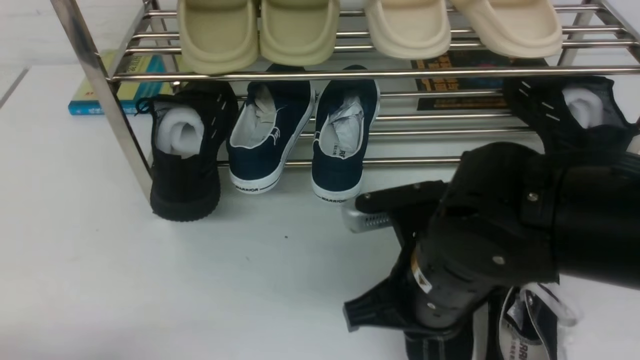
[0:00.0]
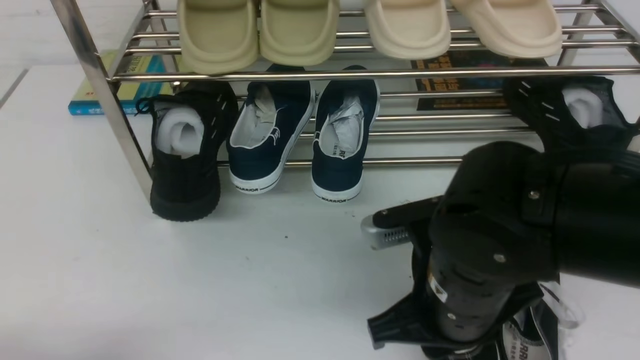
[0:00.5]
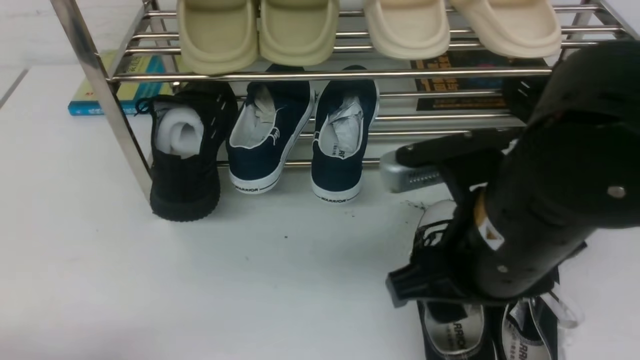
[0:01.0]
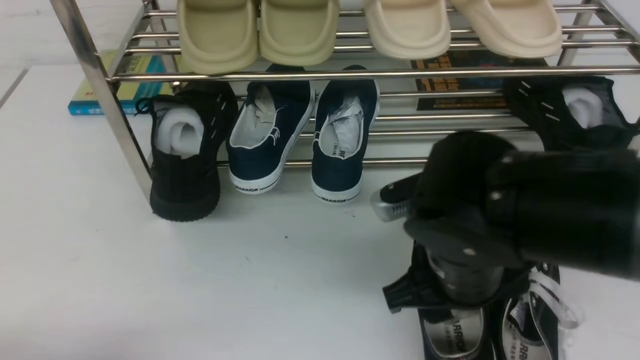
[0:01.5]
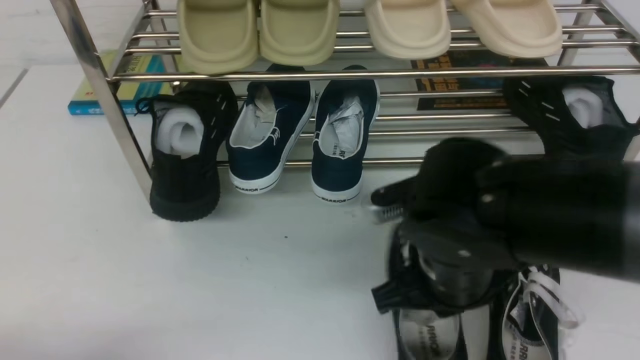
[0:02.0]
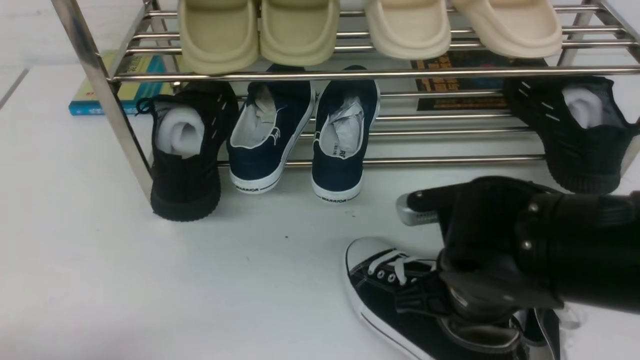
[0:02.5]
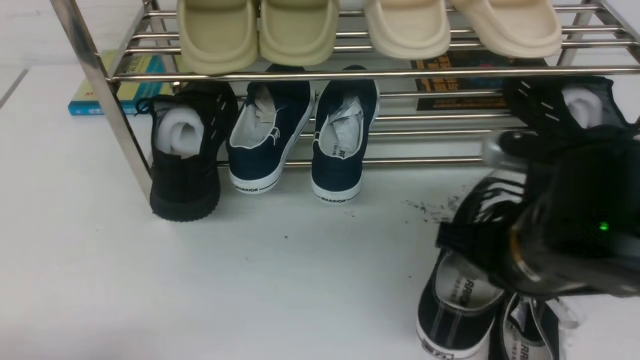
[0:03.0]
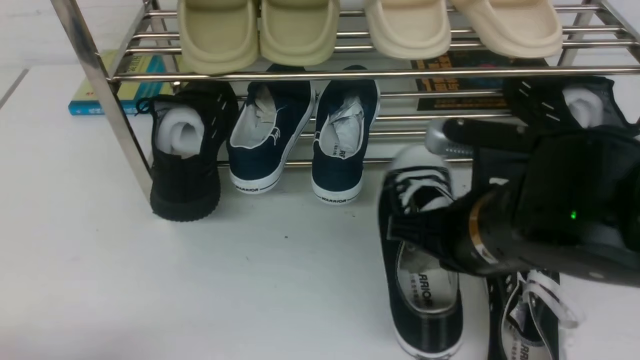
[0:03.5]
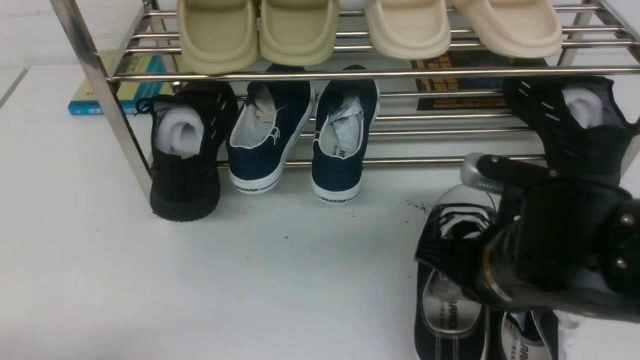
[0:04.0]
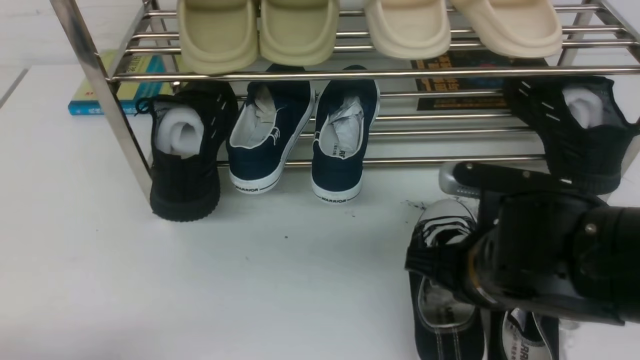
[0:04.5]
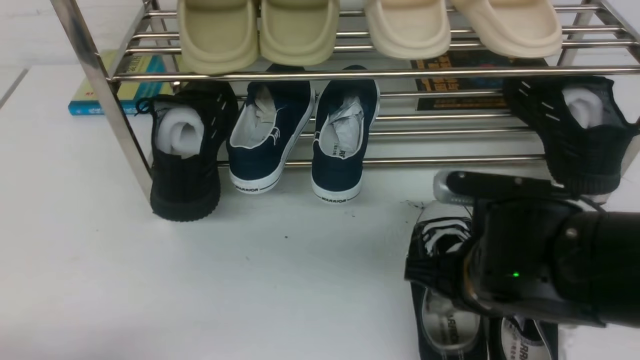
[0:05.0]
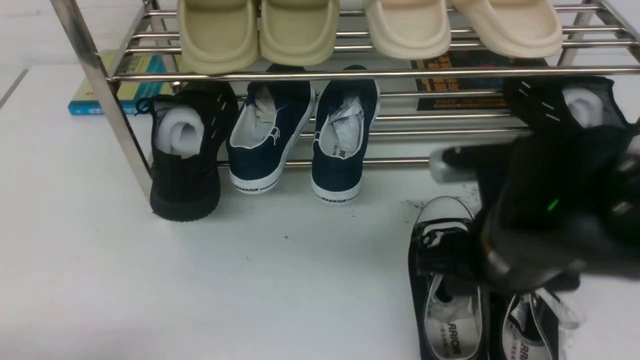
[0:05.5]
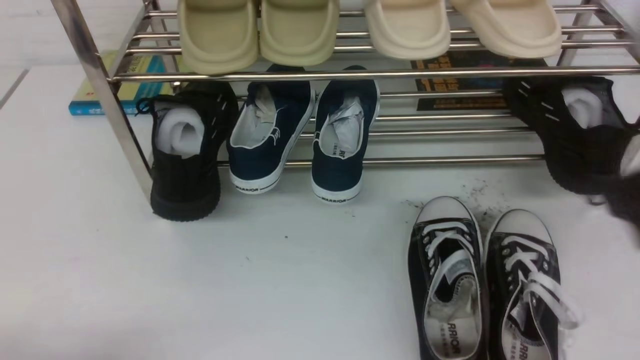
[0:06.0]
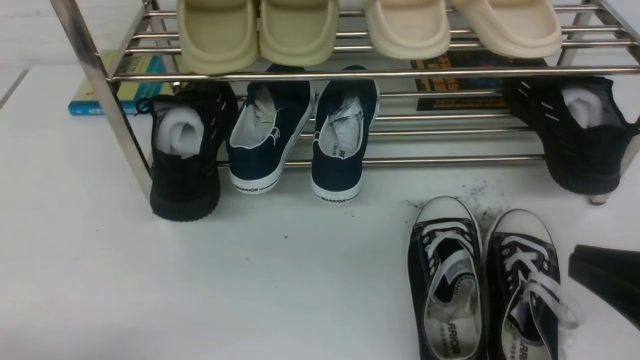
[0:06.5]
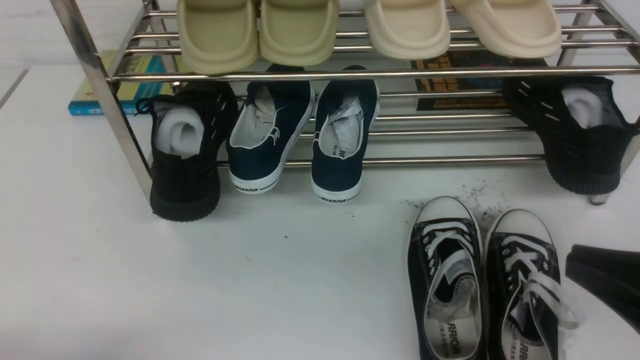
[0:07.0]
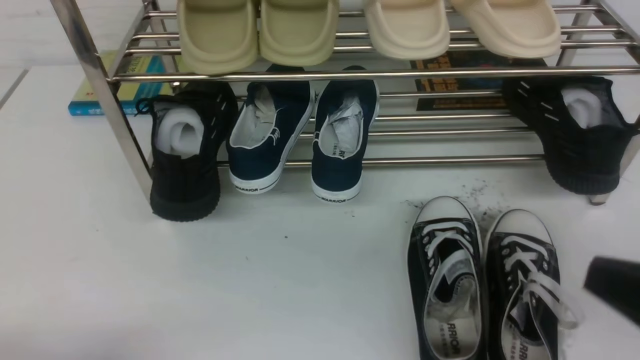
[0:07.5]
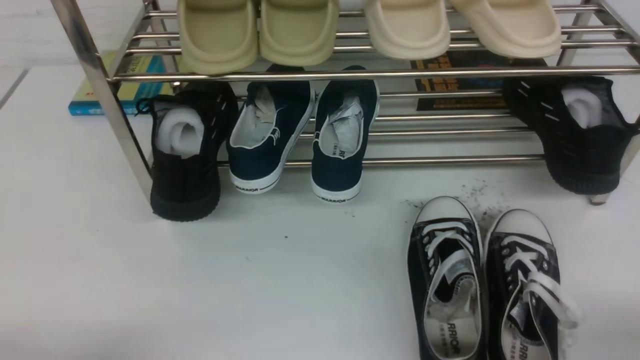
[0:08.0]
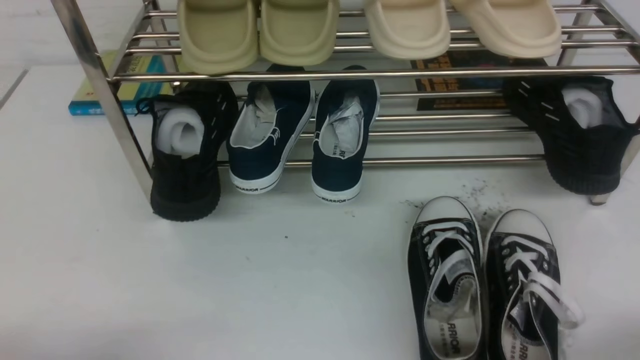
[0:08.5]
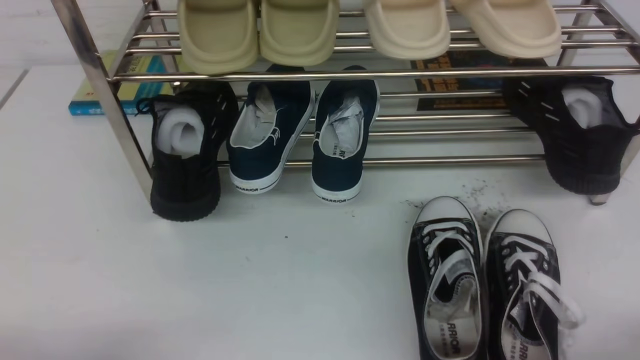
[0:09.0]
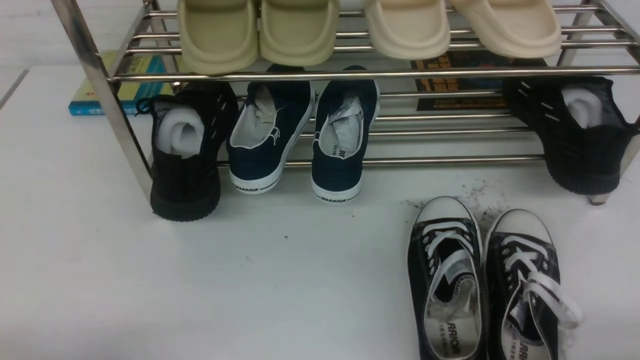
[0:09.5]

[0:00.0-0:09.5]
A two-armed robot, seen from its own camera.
Step, 0:00.0 to 0:05.5: use the right arm to take out the clamped shoe from the shoe rack and put it down.
0:00.0 to 0:02.0: The right gripper opens, then closes again.
0:04.0 to 0:05.5: The right gripper opens.
0:05.5 to 0:07.5: The right gripper moves to the right and backward, some 20 cm, and closes its fingers.
0:07.5 to 0:09.5: The right gripper moves downward and to the right, approximately 15 cm.

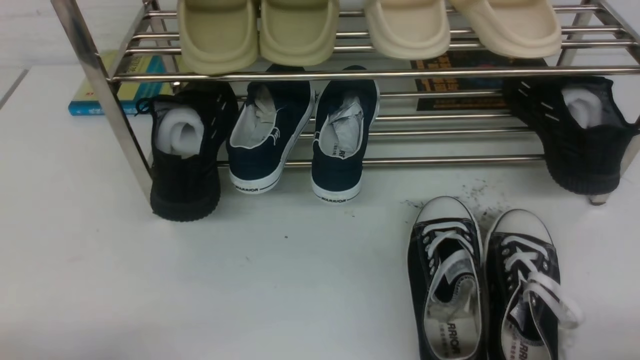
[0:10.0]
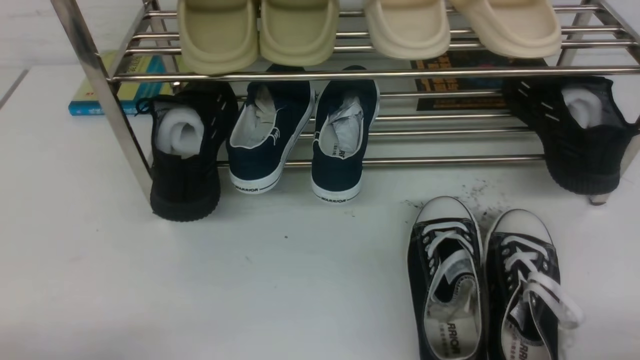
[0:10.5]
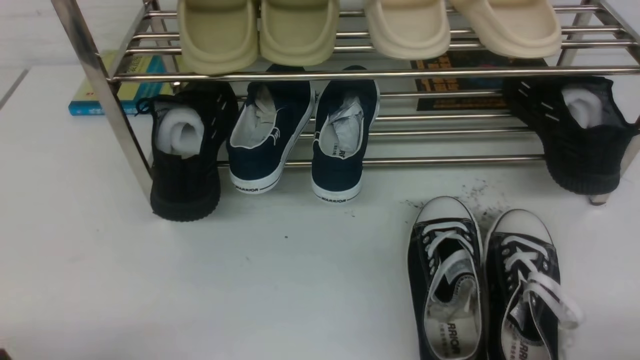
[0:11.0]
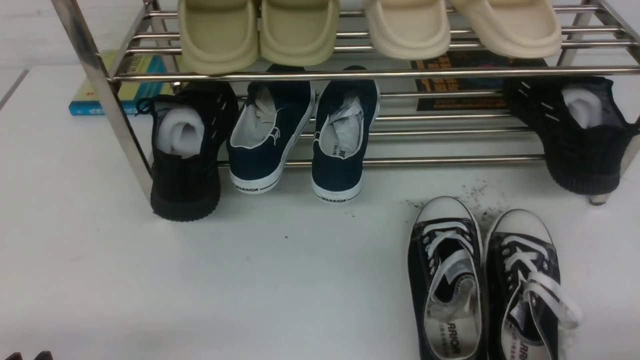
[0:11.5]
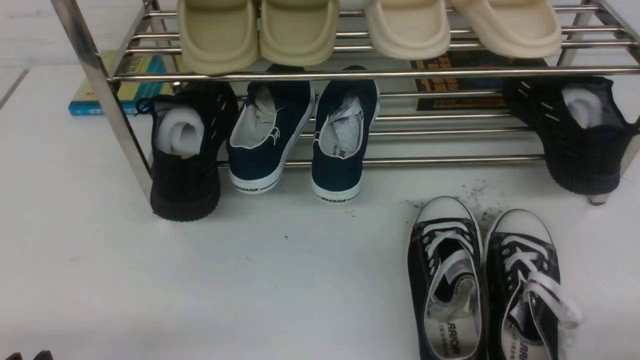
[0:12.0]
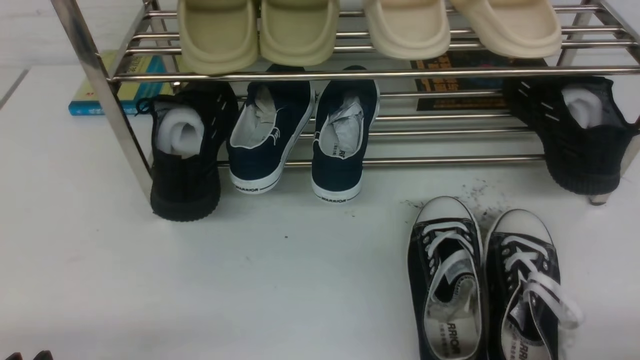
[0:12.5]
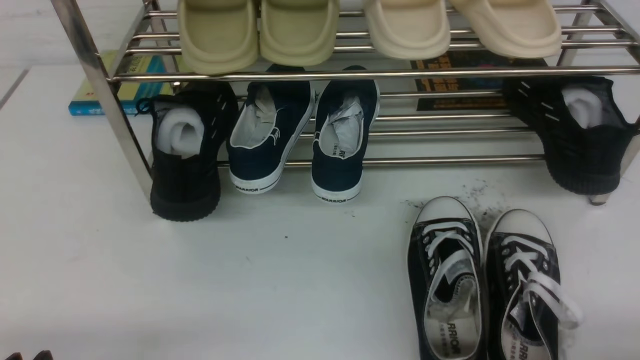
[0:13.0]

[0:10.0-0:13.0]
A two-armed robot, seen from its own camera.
0:11.5 to 0:13.0: Both grippers stay put.

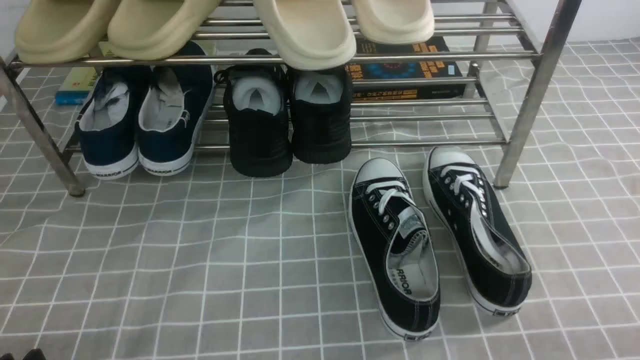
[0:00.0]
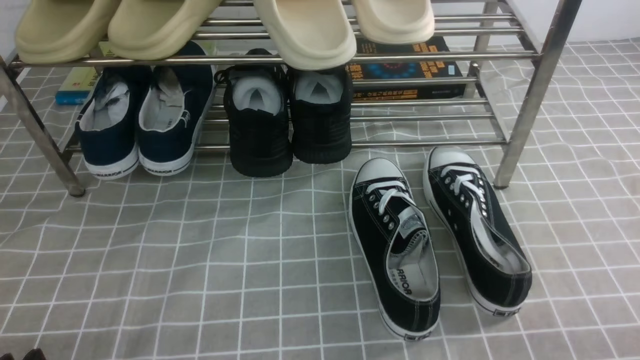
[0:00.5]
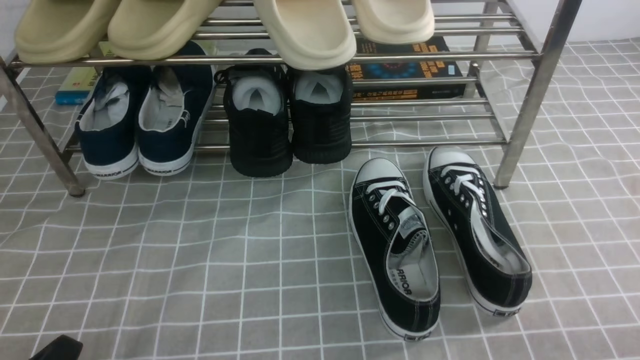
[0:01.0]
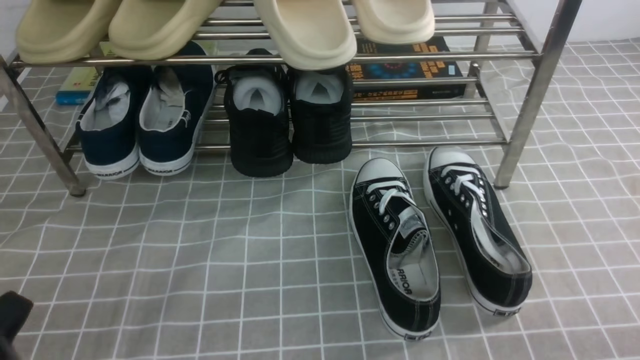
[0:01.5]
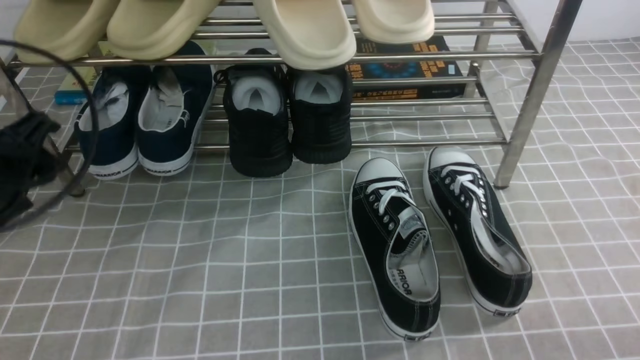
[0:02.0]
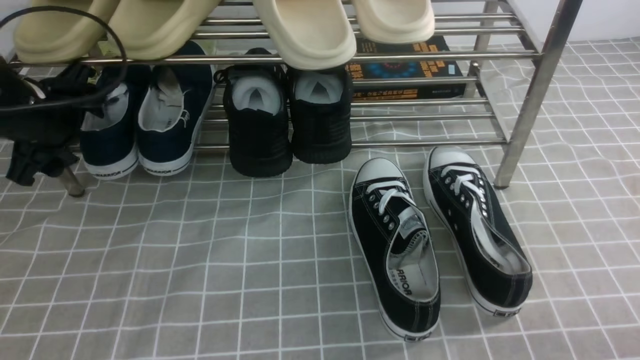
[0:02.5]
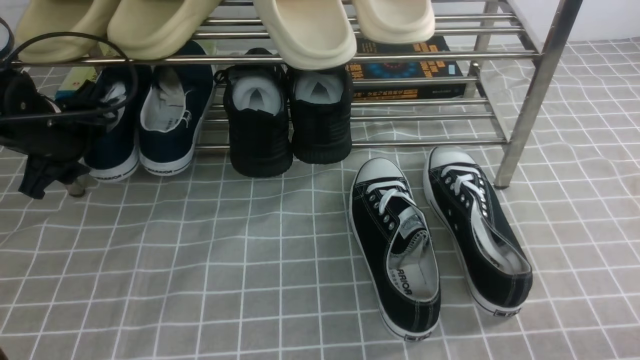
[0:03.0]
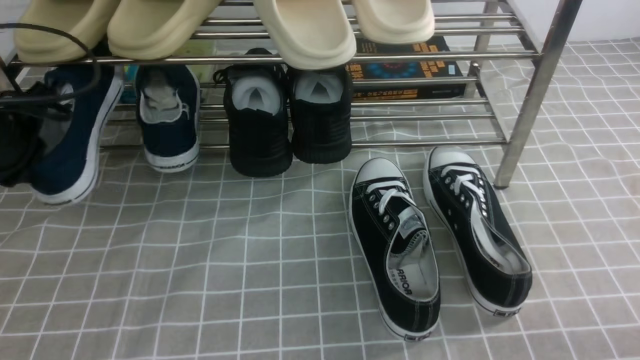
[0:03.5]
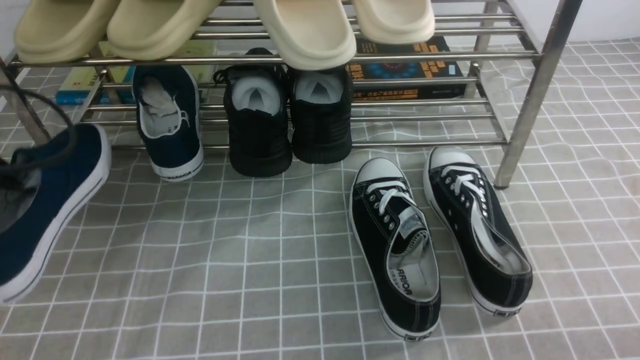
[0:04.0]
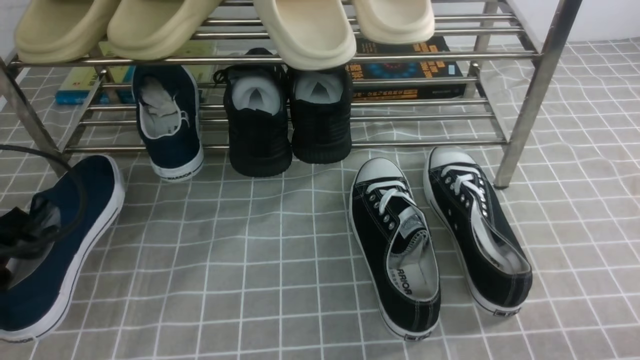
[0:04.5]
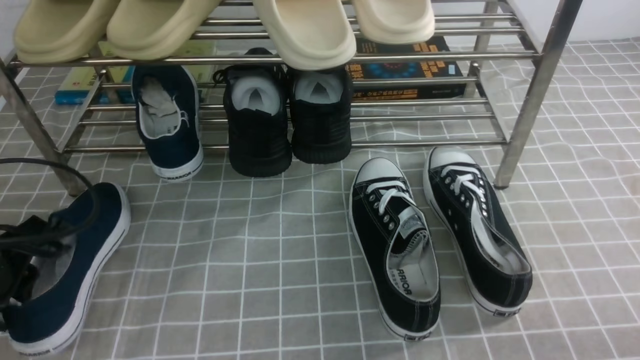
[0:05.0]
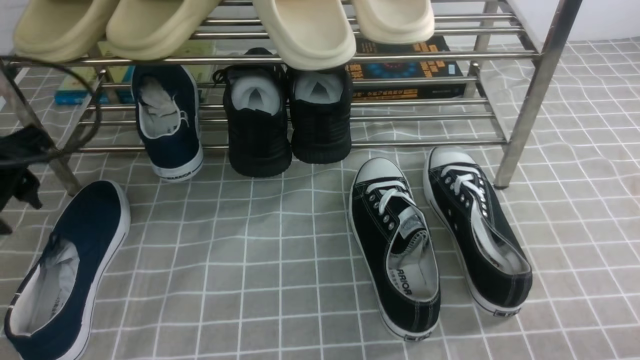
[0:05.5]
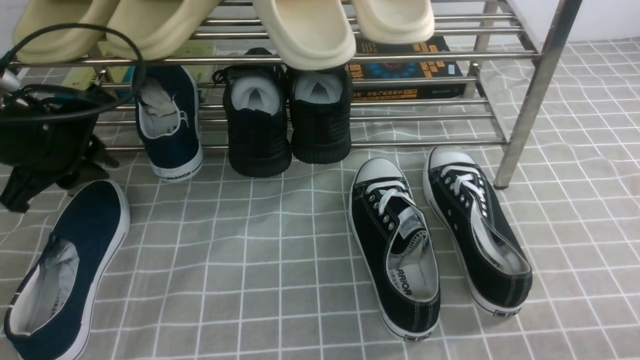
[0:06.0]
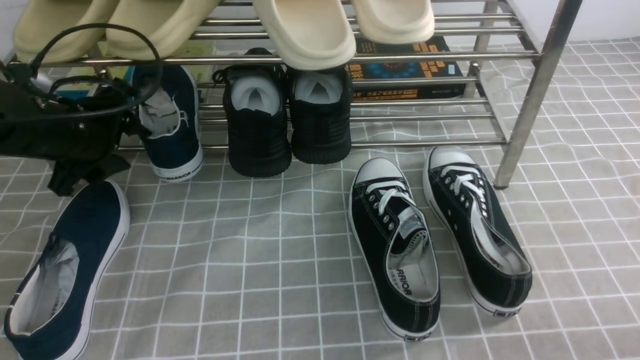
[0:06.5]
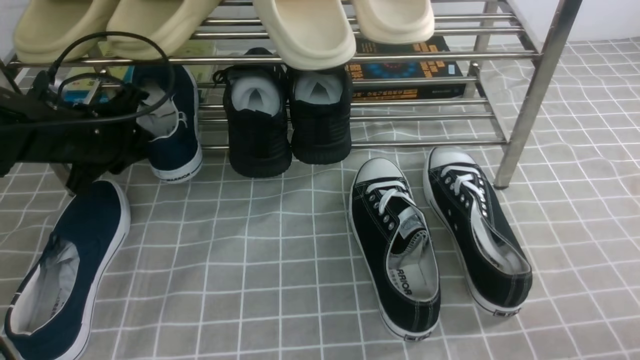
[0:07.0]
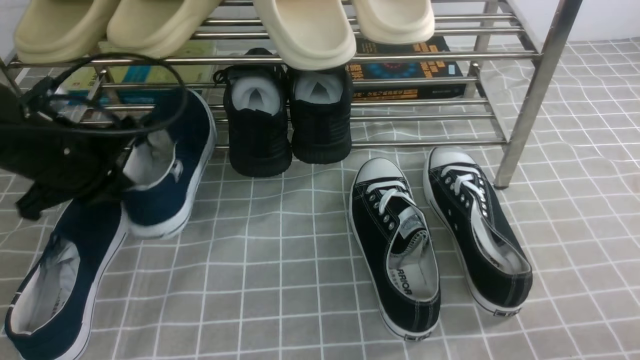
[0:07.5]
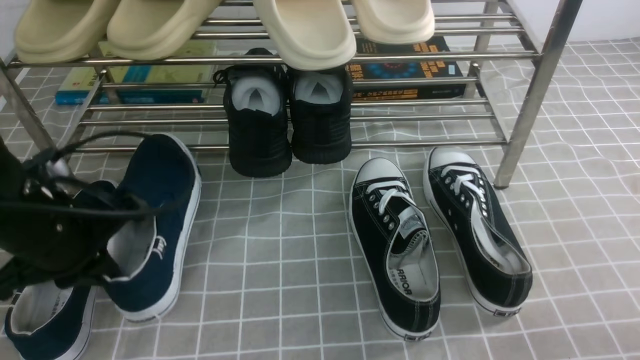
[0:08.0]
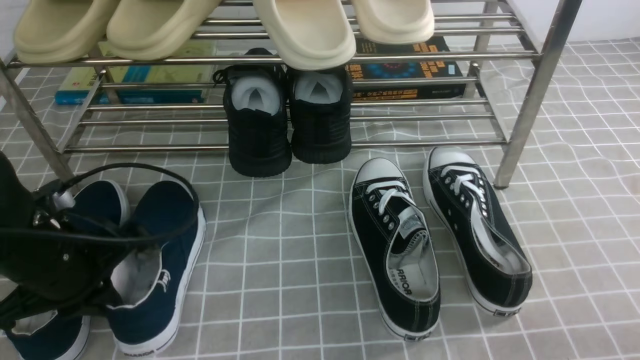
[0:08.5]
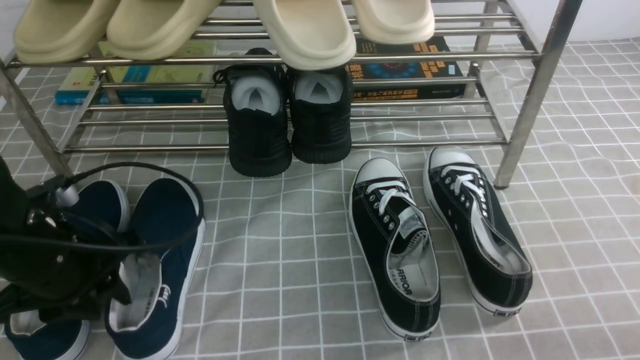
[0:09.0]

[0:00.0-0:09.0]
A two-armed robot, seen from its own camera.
Step, 0:00.0 to 0:03.0: use the left arm to clamp a shoe on the left side of the shoe rack.
Step, 0:03.5 to 0:05.0: Use your left arm to remove the clamped shoe from the shoe rack and put it down.
Step, 0:05.5 to 0:07.0: use the left arm to clamp a shoe on the left side of the shoe rack.
0:00.0 to 0:02.0: The left gripper moves forward and upward, some 20 cm, and opens its fingers.
0:02.0 to 0:04.5: The left gripper goes about 5 cm downward, goes forward and returns, roughly 15 cm each way, and closes.
0:04.5 to 0:07.0: The left gripper moves forward, roughly 15 cm, and opens, then closes once more.
0:07.0 to 0:09.0: The left gripper is displaced backward by some 15 cm.
